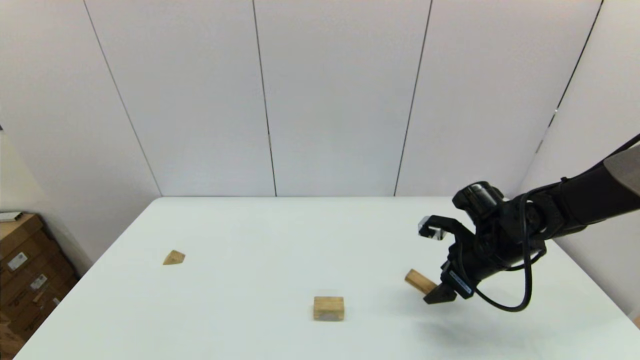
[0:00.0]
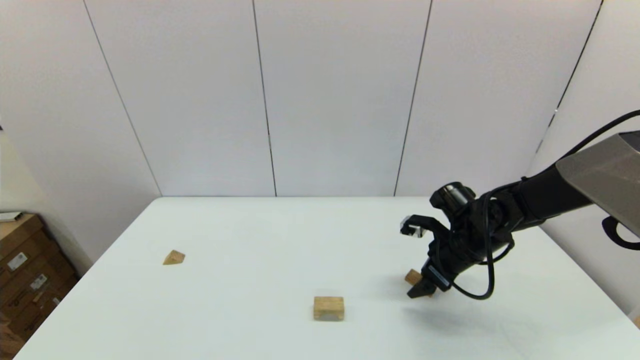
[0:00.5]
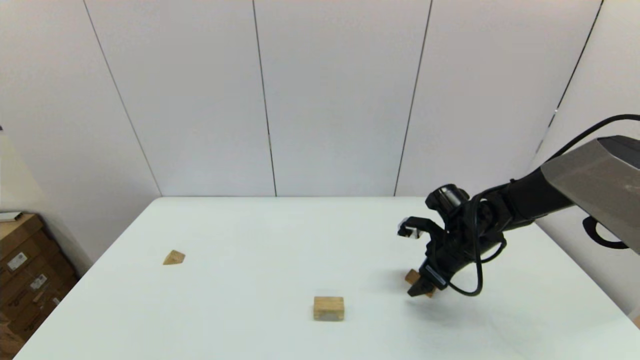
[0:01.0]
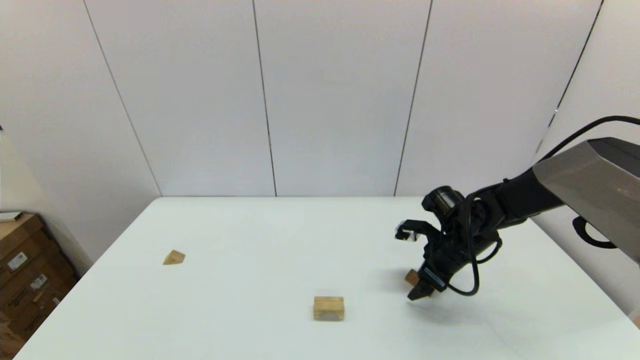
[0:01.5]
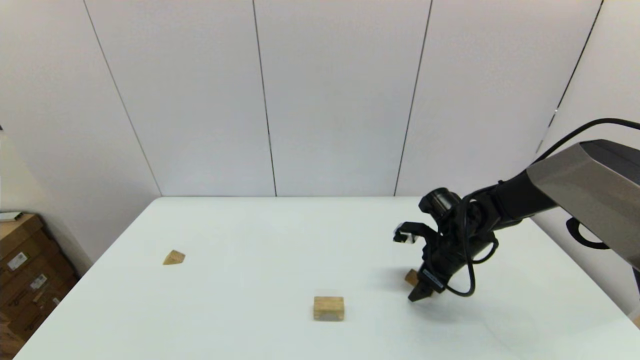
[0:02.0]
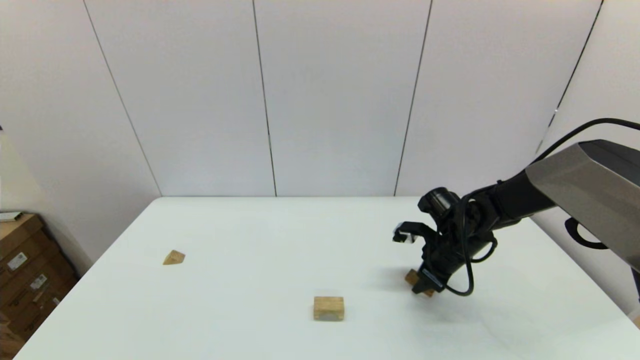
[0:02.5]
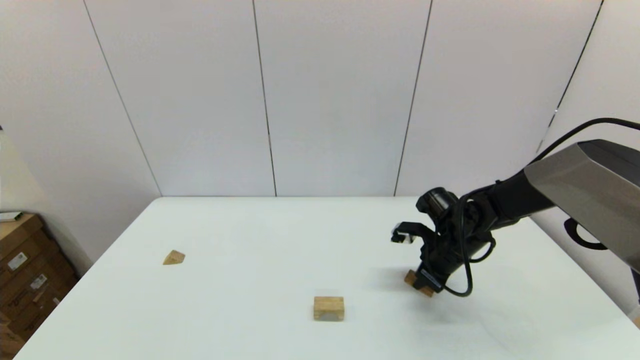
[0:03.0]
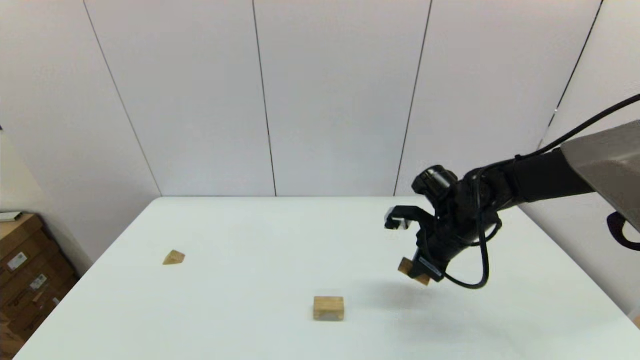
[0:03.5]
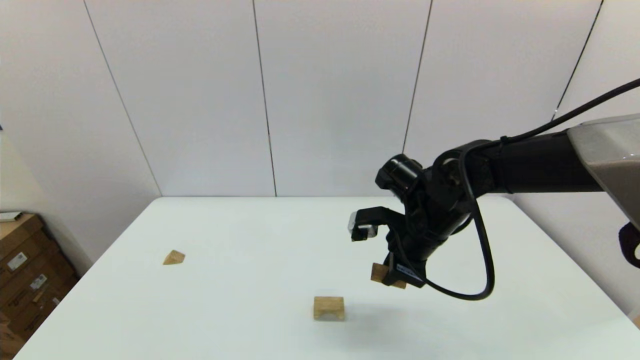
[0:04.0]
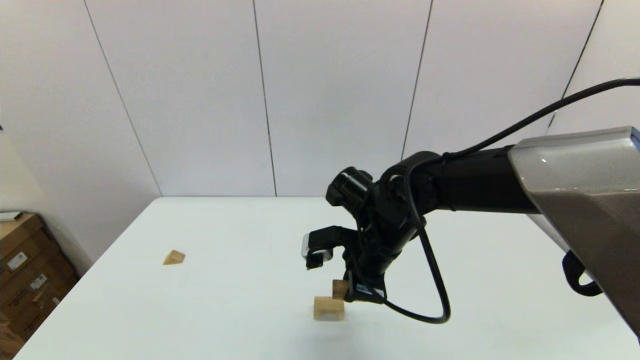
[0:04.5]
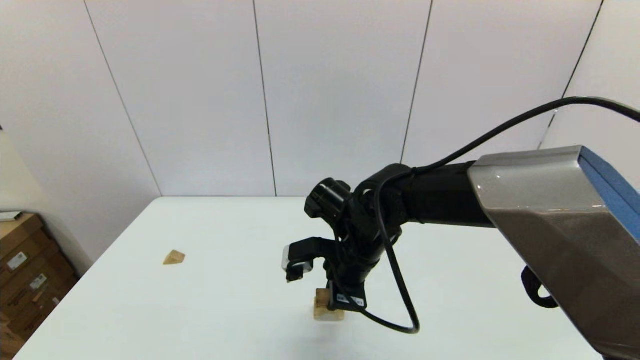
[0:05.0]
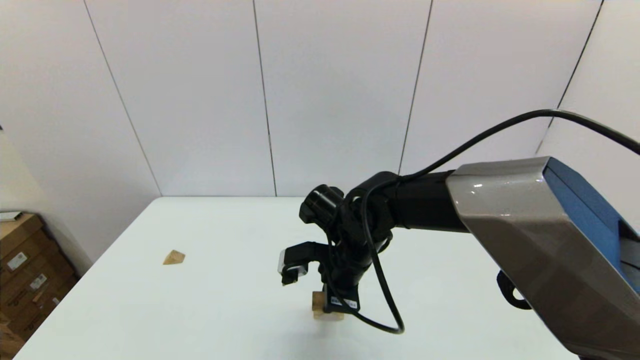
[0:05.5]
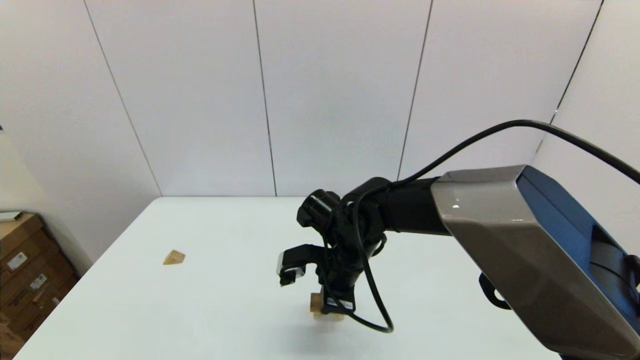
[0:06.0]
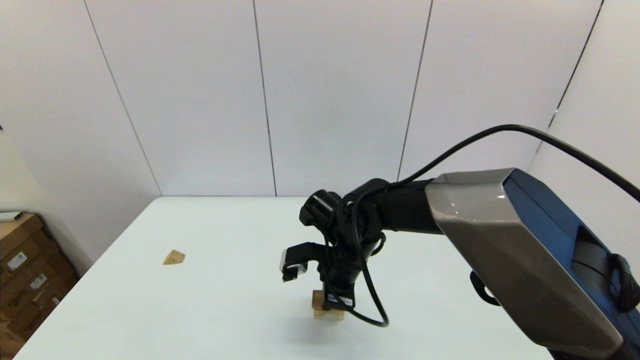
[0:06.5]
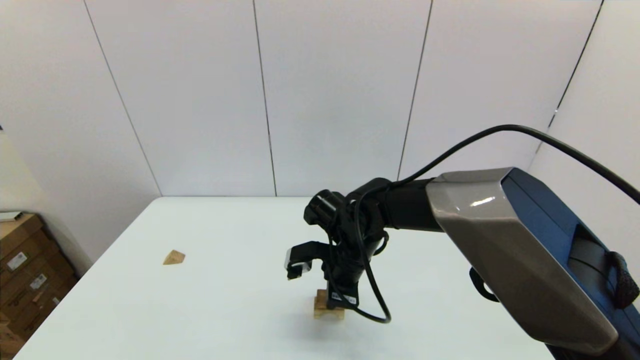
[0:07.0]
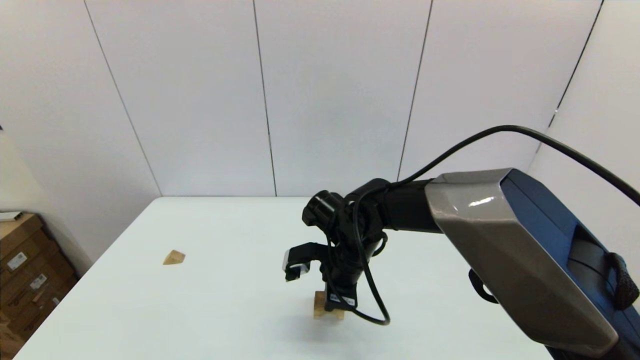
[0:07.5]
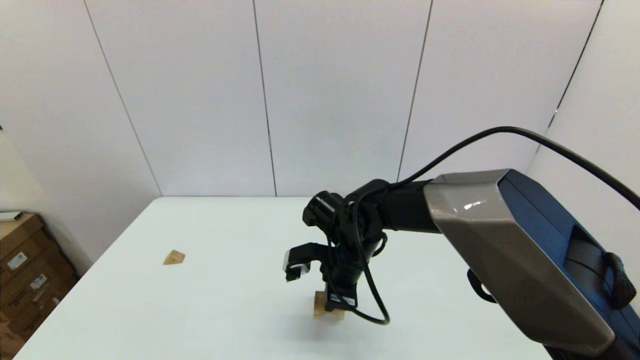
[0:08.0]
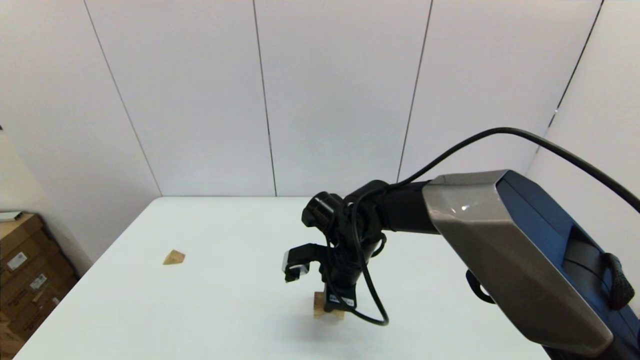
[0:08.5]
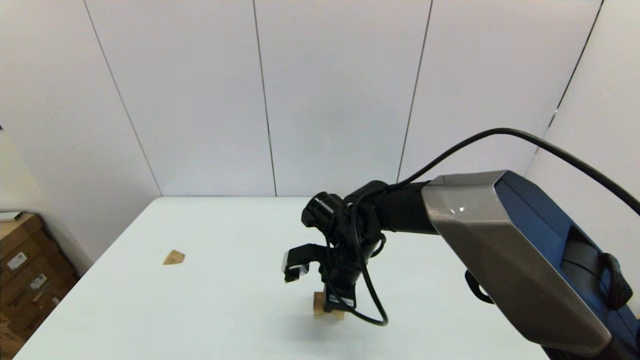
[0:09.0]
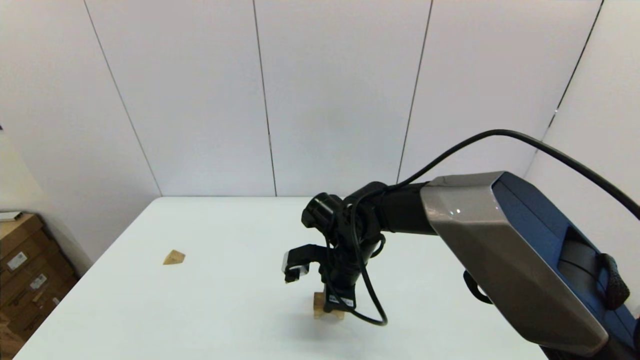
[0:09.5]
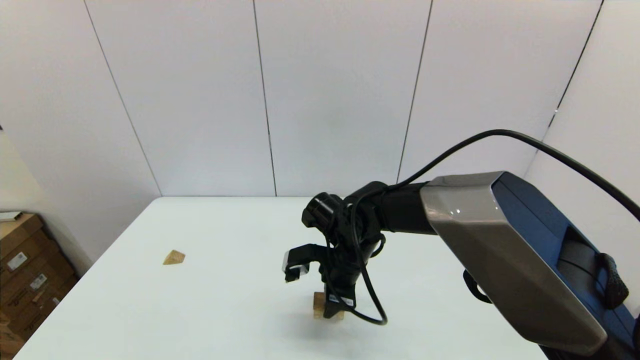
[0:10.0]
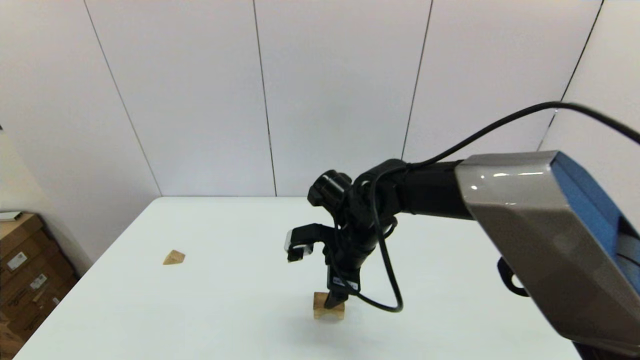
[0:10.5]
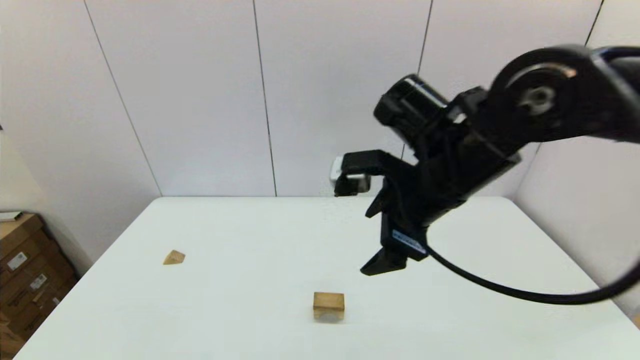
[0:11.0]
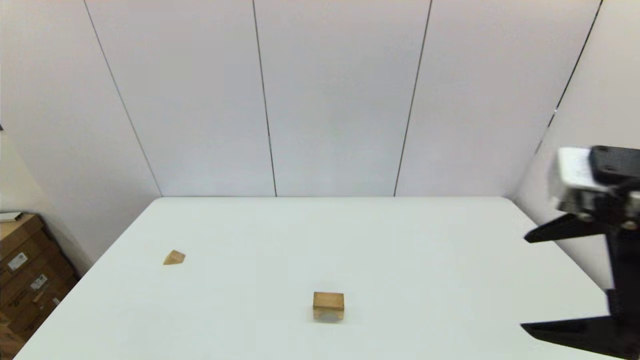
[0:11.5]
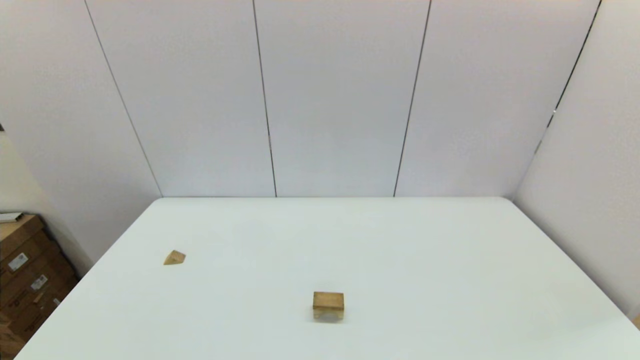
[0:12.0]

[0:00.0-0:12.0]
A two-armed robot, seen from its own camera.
Task of the whole recording: place the arched building blocks in the center of the table, set up the rectangular building blocks, and then set up the triangular building blocks.
Step, 0:00.0 to 0:03.0: Grasp the box-shaped block with the right gripper.
Step, 0:03.5 to 0:09.5: Place the box-shaped block onto the arch-shaped block with the right gripper.
0:00.0 to 0:02.0: The right gripper changes place by approximately 5 cm.
0:02.0 to 0:04.0: The right gripper travels upward, to the left and backward by some 15 cm, and closes.
0:04.0 to 0:06.0: The right gripper moves to the left and downward, some 10 cm.
0:06.0 to 0:08.0: The grippers stay close to where they were, moving slightly.
0:08.0 to 0:10.0: The right gripper opens its fingers.
0:10.0 to 0:12.0: The right gripper goes about 50 cm backward, to the right and upward, and opens its fingers.

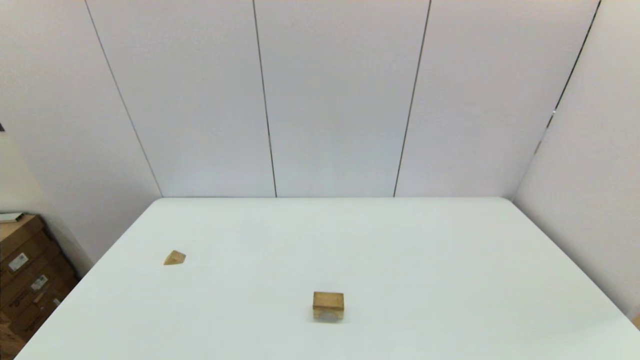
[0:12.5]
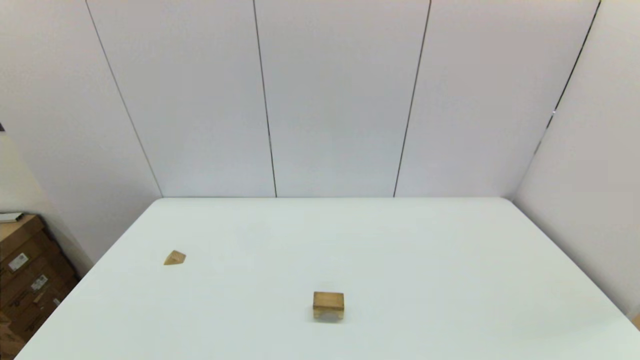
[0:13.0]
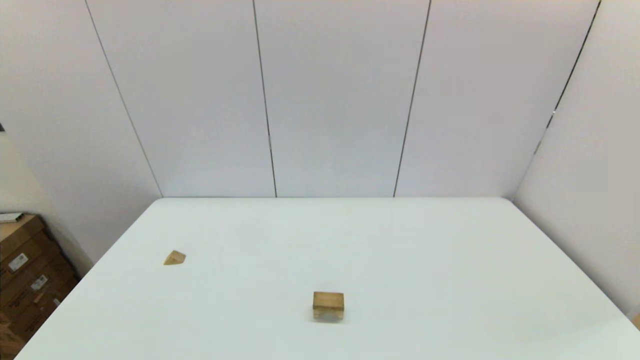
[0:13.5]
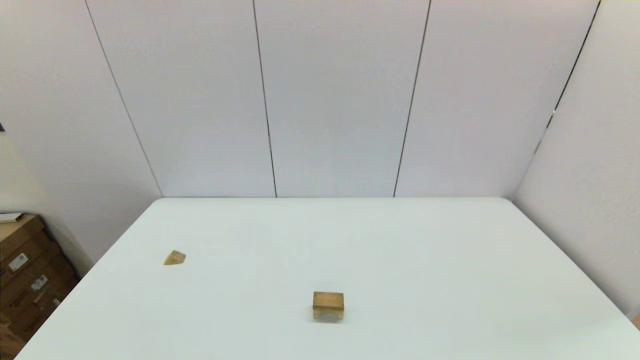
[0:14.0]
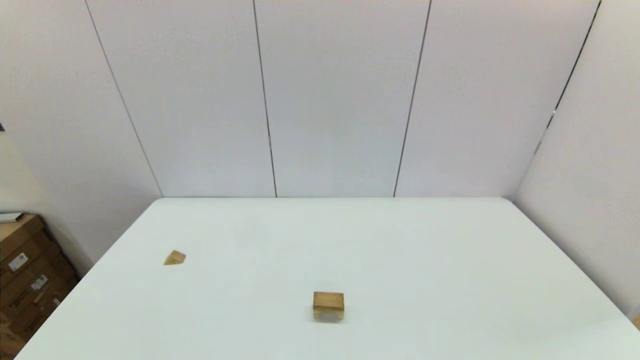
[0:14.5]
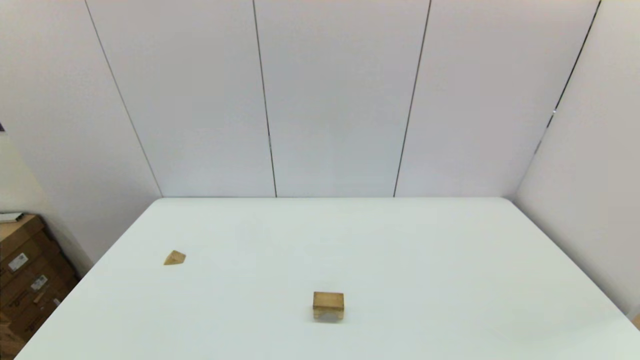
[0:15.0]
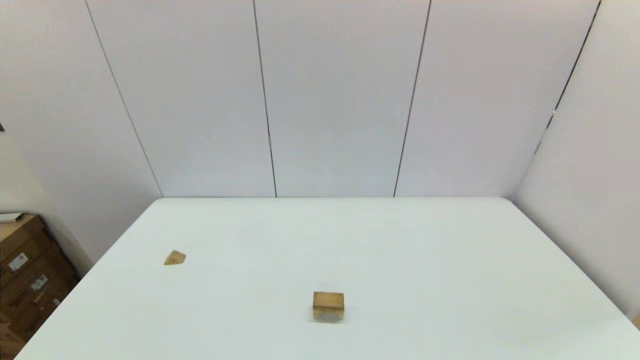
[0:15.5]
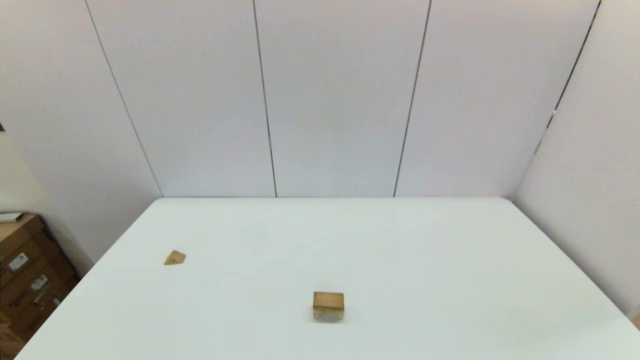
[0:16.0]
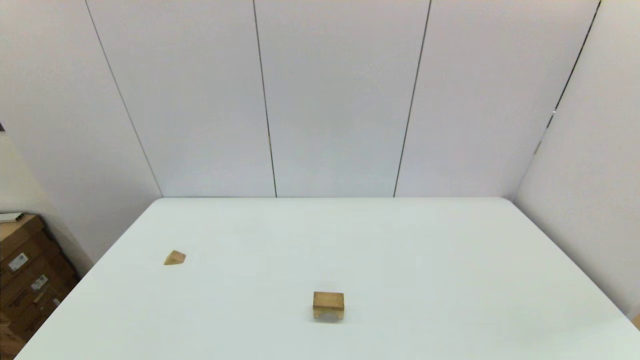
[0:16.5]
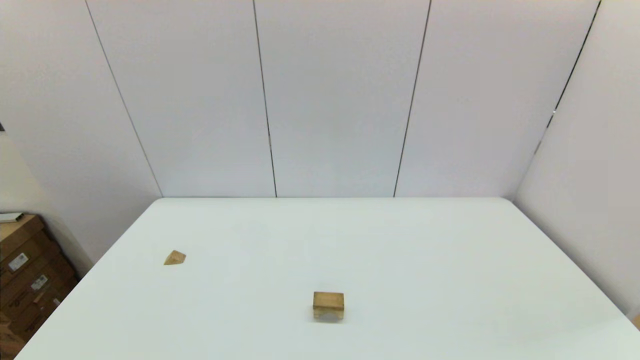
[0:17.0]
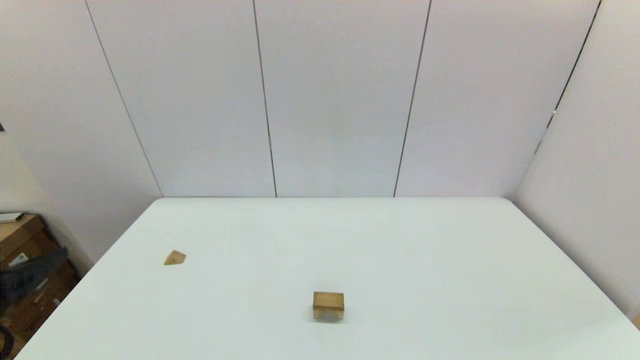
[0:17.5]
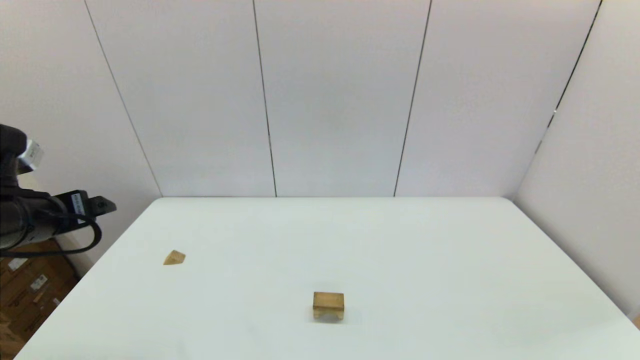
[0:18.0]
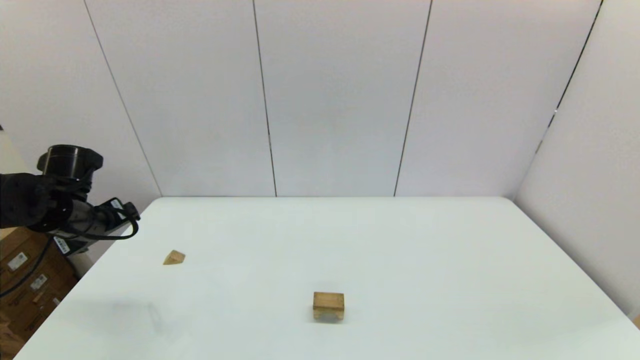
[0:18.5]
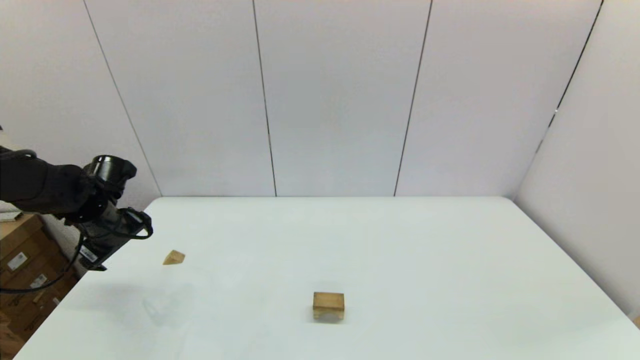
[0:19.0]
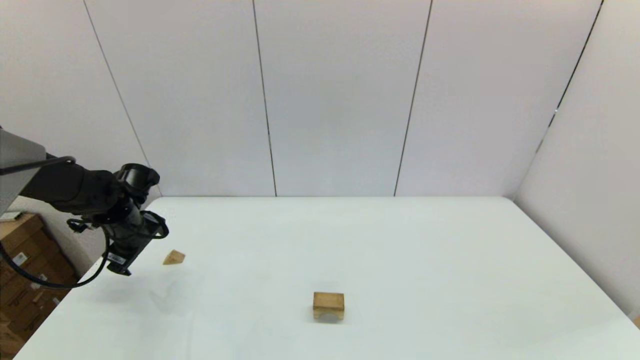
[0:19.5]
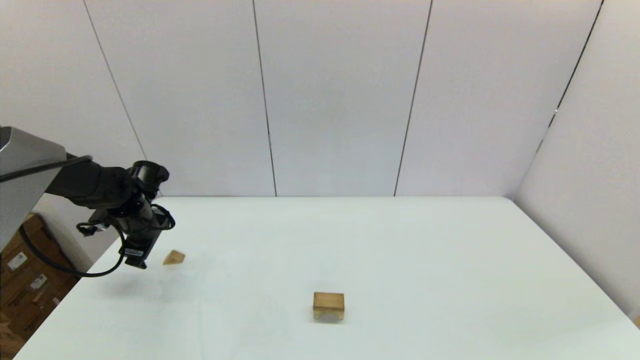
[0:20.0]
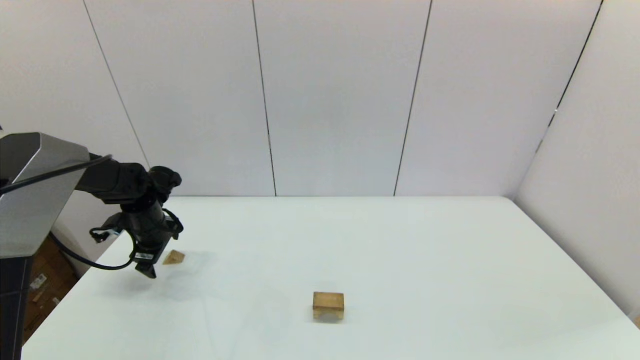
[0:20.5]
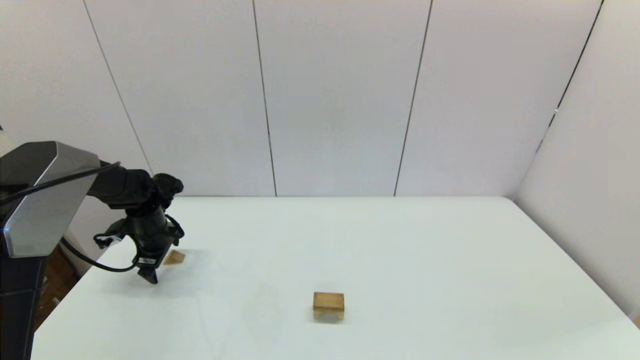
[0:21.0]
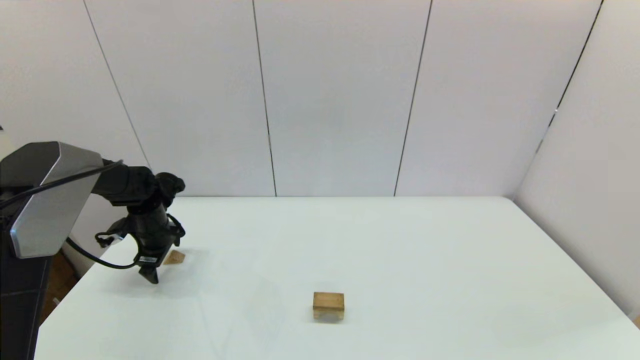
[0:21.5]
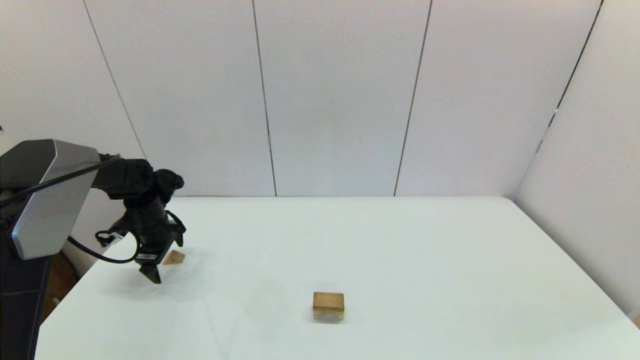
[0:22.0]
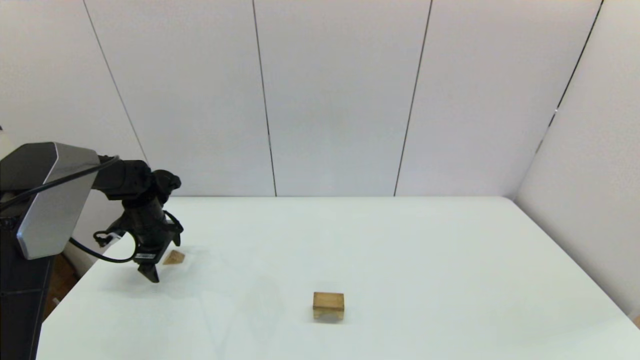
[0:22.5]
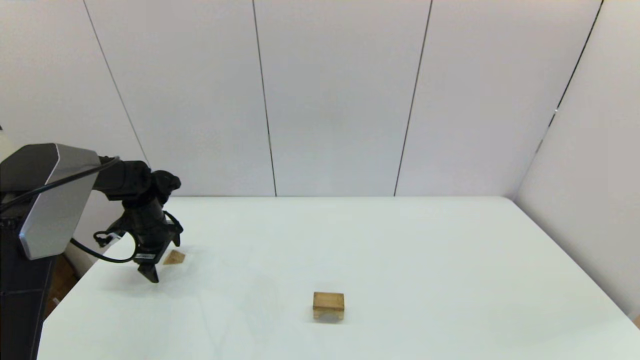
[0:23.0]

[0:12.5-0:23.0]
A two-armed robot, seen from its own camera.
Task of the whole recording: place the arched building blocks in the center of the table, set up the rectangular building blocks, and then set up the triangular building blocks.
0:16.5 to 0:19.0: The left gripper moves forward, about 35 cm.
0:19.0 to 0:21.0: The left gripper shifts roughly 10 cm downward and forward.
0:21.0 to 0:23.0: There are only small adjustments of the grippers.
